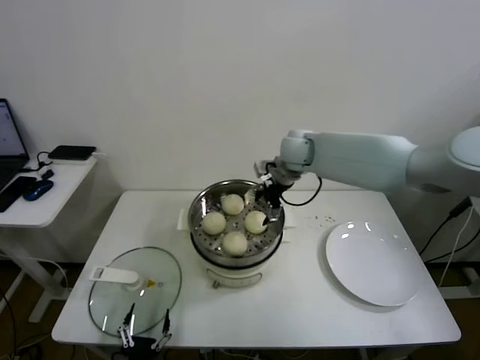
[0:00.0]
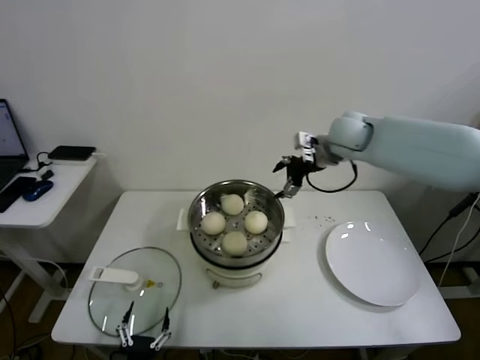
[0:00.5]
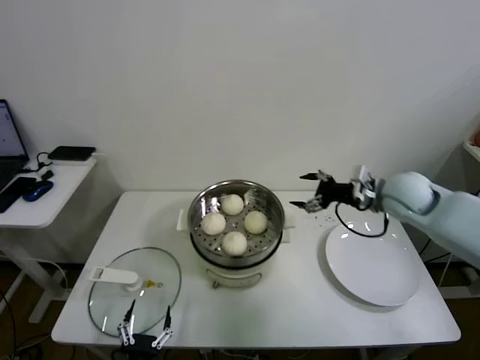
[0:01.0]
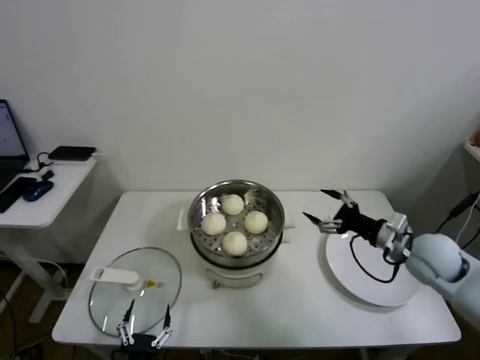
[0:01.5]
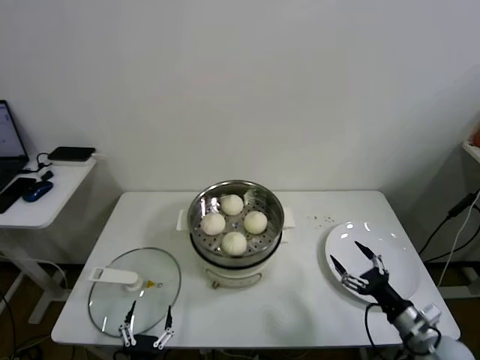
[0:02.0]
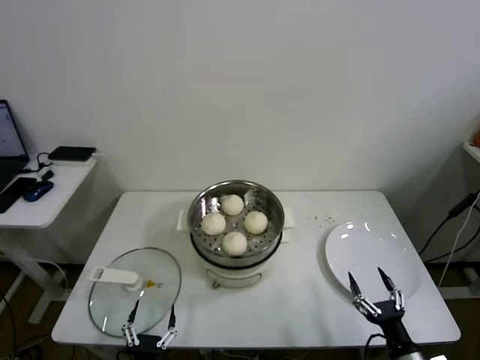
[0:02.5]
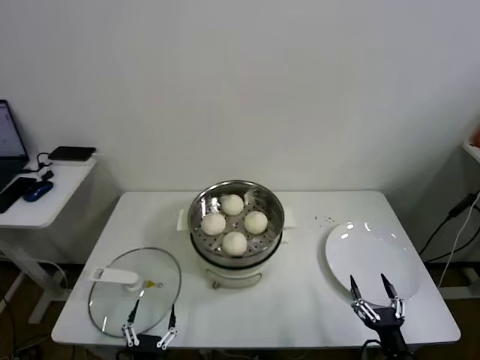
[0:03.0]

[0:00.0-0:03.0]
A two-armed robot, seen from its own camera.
Task of the whole recording: take steamed baozi put them in steamer.
0:00.0 to 0:01.5: The right gripper moves to the right, backward and downward, about 35 cm.
0:01.5 to 0:03.0: The right gripper goes about 30 cm backward and downward.
